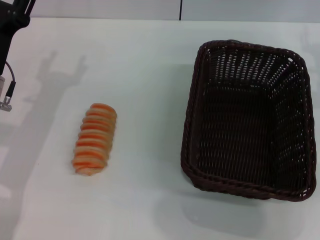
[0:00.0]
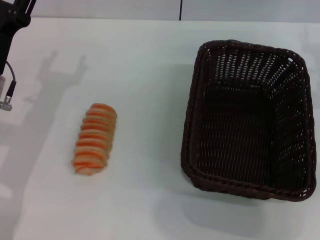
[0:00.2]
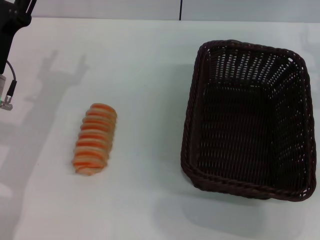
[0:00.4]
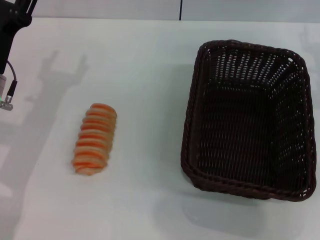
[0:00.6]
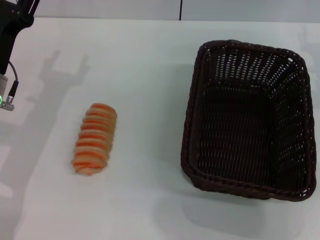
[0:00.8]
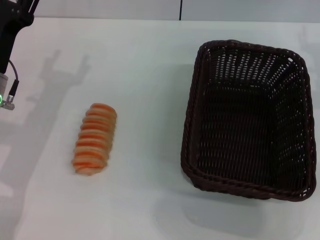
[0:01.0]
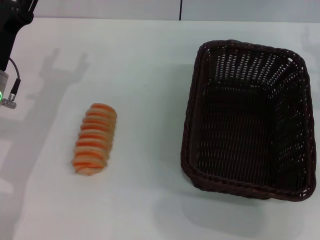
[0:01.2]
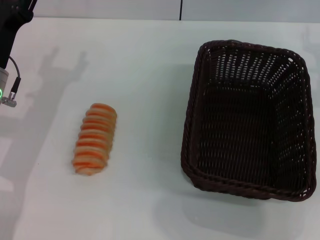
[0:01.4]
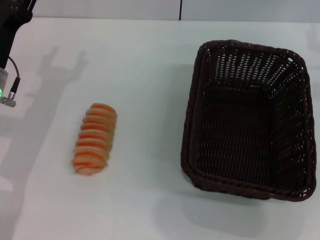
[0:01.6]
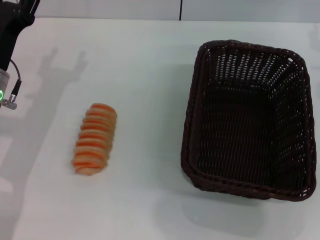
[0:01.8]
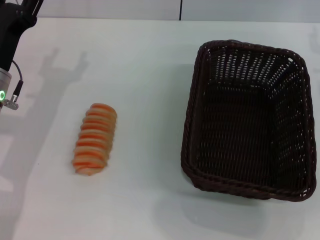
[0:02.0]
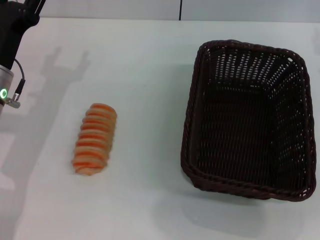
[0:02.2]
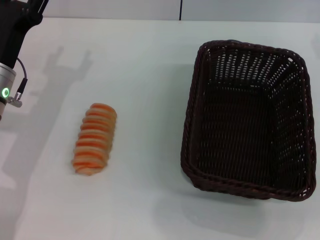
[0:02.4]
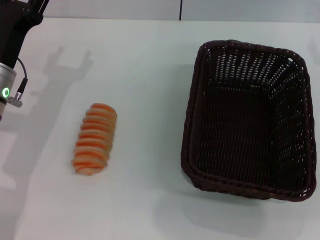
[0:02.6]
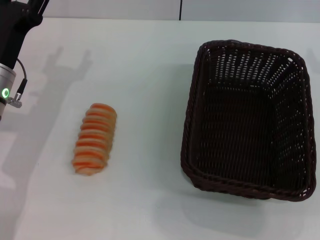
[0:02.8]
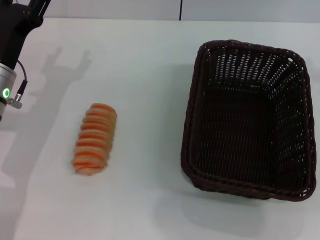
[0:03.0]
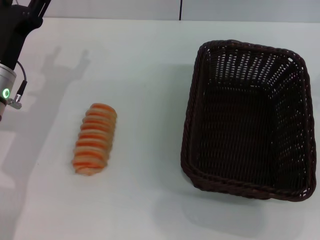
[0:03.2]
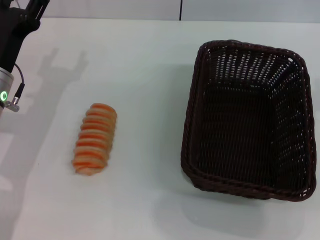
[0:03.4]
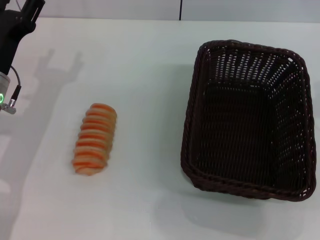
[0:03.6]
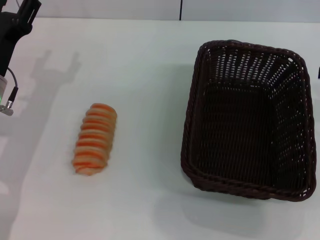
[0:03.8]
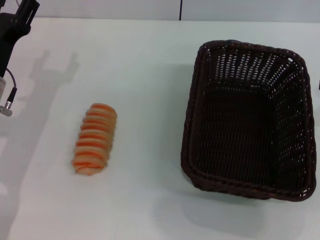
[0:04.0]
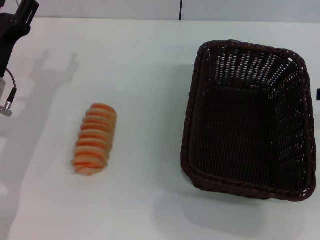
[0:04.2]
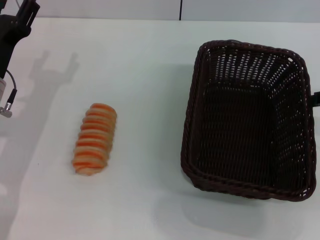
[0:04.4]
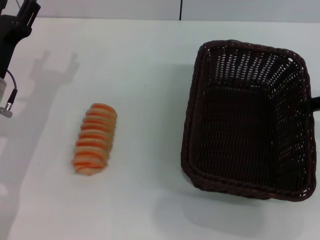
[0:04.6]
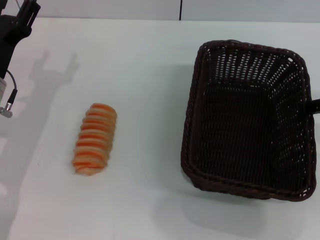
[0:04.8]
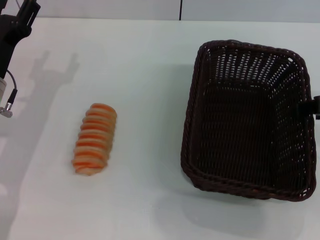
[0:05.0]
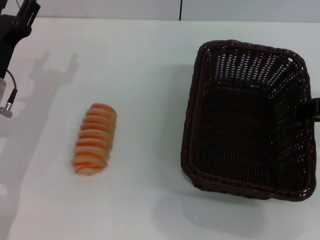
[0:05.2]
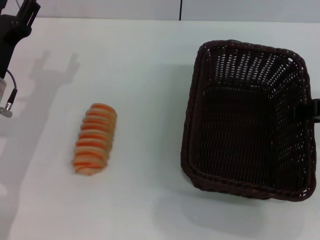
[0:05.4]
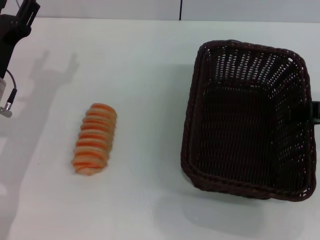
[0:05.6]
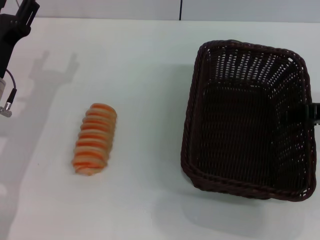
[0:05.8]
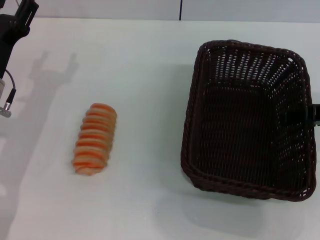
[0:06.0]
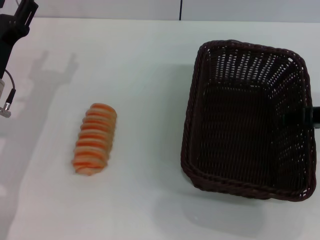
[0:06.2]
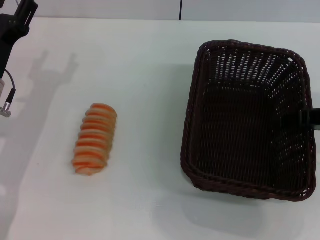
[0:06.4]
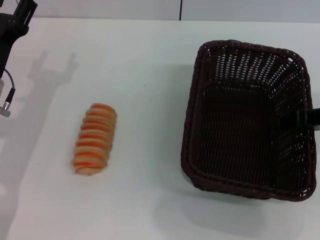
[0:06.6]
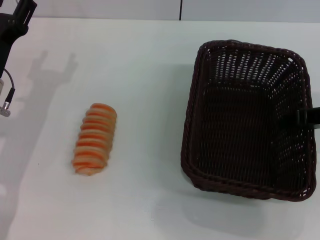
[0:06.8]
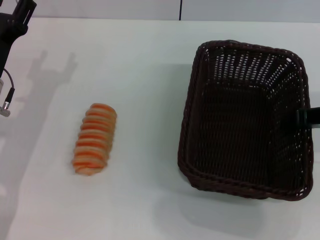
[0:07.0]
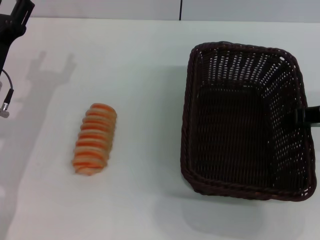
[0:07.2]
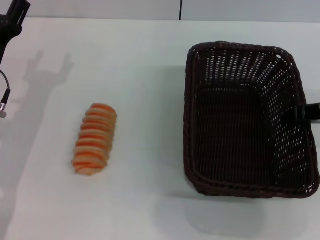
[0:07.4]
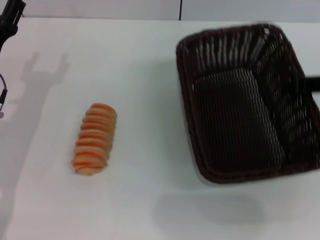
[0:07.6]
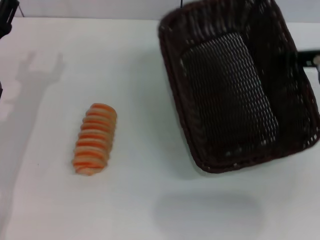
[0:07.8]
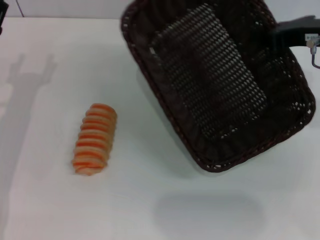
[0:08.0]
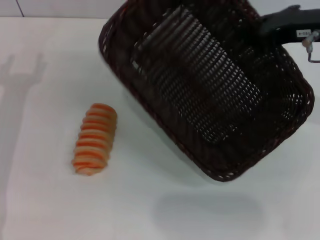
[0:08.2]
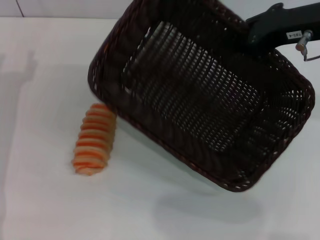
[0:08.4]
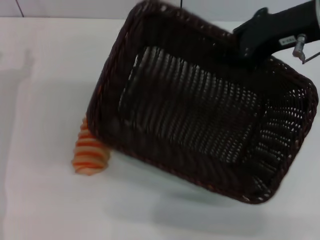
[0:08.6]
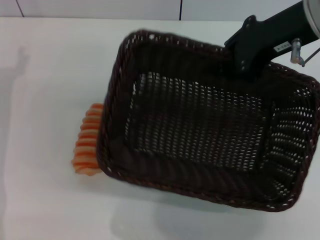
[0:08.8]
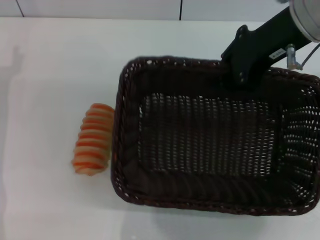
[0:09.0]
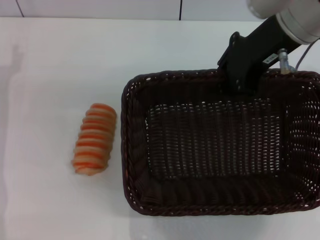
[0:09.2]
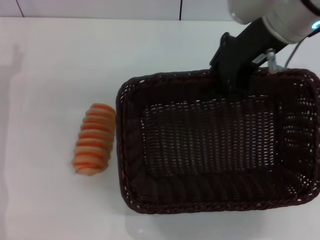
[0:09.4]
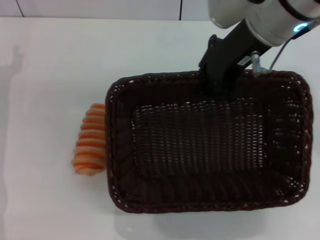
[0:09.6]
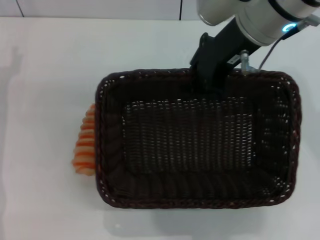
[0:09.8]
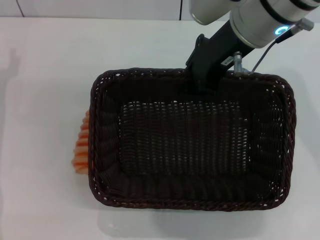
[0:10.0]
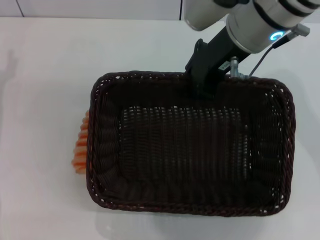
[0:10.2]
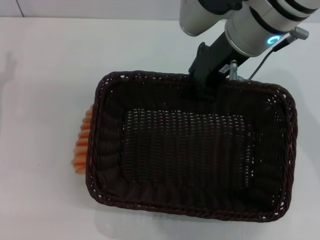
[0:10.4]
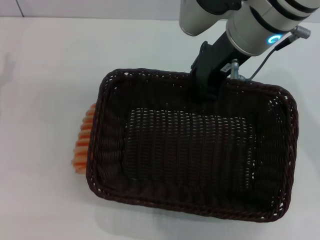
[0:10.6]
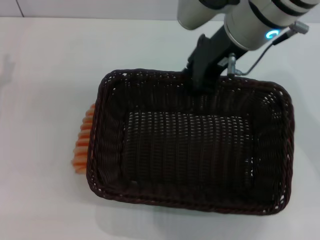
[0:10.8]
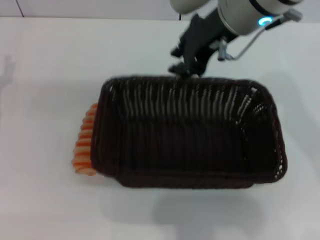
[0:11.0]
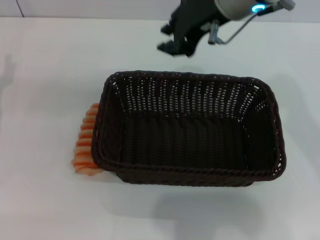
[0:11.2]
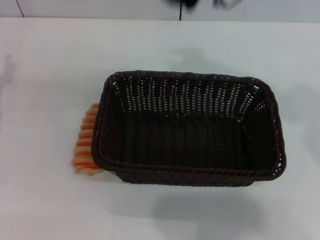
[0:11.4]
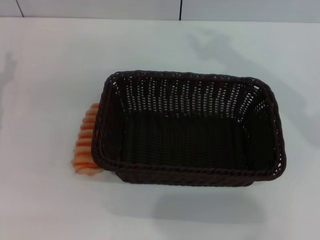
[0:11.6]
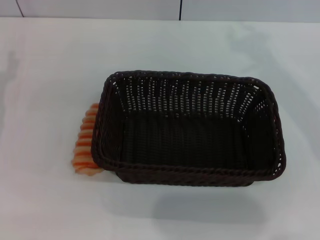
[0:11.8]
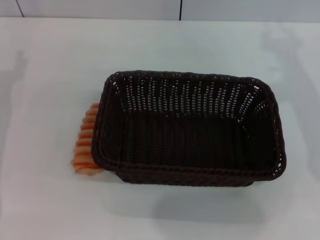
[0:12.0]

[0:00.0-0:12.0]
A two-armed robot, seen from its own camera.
Step, 0.0 to 7.8 s: Pick up the dark basket with the right gripper.
Step, 8.2 to 11.0 s: Place the dark basket in the center of view with the right gripper.
0.0 to 1.6 s: The grippers stay close to where they were, moving slightly.
4.4 to 6.0 s: The grippers stay close to where they were, moving slightly.
6.0 to 7.6 s: The right gripper closes its fingers.
7.6 to 9.0 s: The right gripper travels to the left and upward by about 15 cm. The left gripper changes place by roughly 5 cm.
9.0 to 10.4 s: The right gripper shifts about 5 cm to the left.
10.4 to 12.0 s: The right gripper travels to the right by some 10 cm, and opens its fingers.

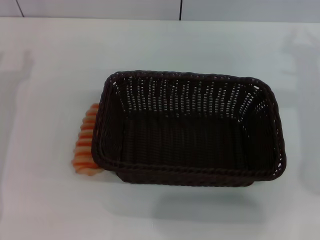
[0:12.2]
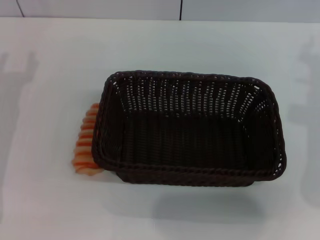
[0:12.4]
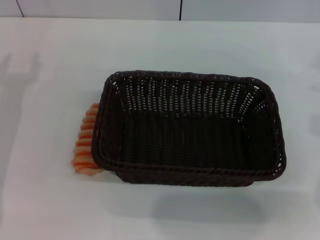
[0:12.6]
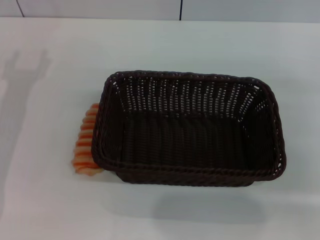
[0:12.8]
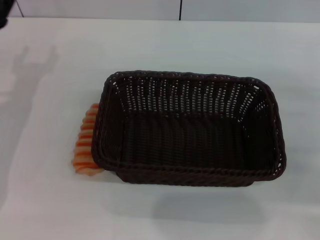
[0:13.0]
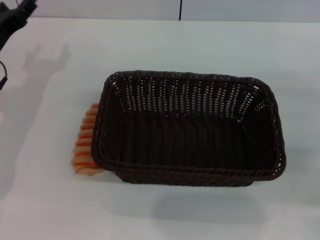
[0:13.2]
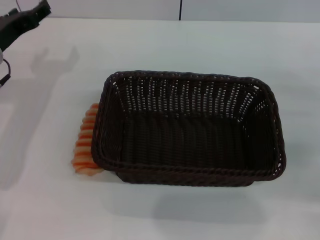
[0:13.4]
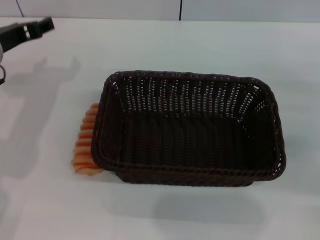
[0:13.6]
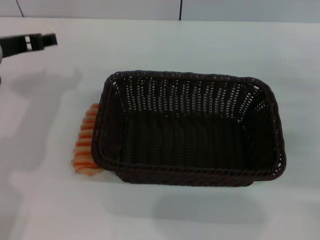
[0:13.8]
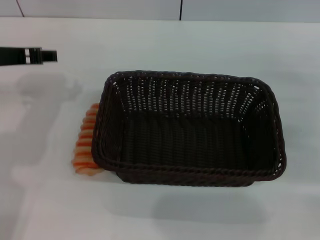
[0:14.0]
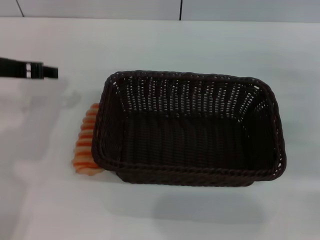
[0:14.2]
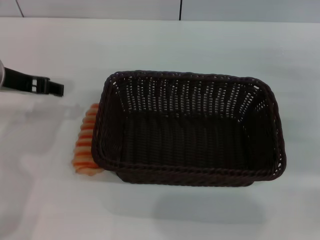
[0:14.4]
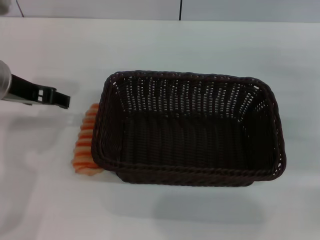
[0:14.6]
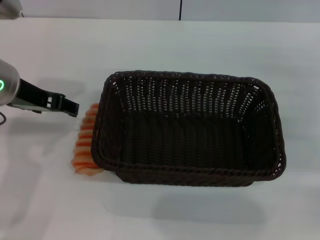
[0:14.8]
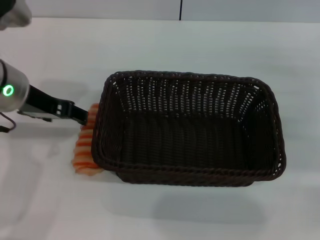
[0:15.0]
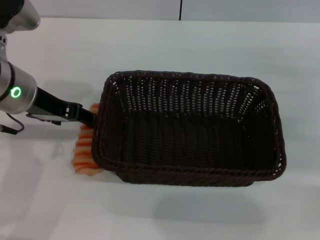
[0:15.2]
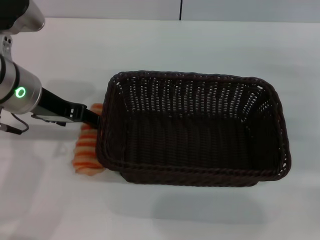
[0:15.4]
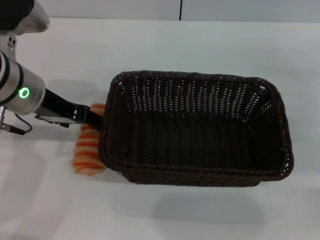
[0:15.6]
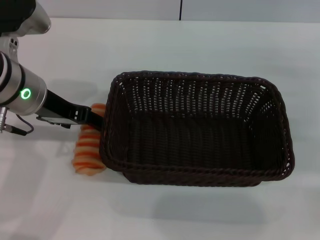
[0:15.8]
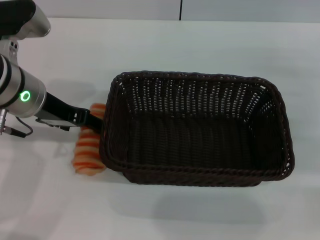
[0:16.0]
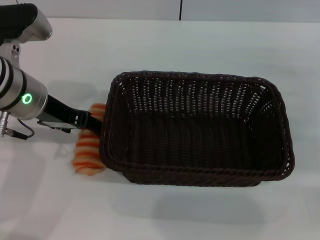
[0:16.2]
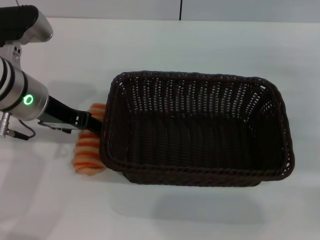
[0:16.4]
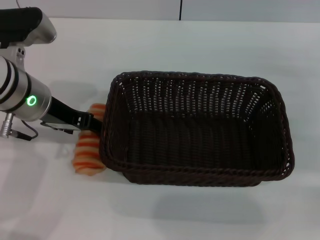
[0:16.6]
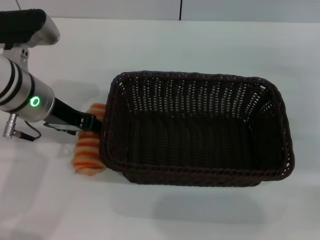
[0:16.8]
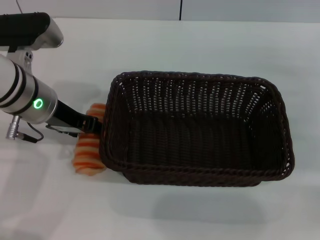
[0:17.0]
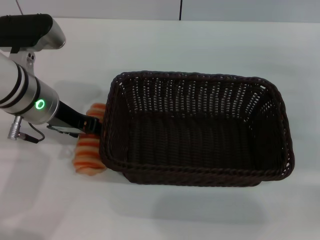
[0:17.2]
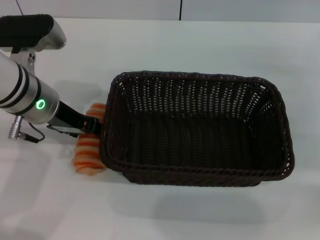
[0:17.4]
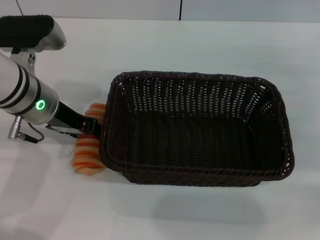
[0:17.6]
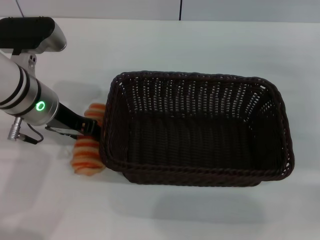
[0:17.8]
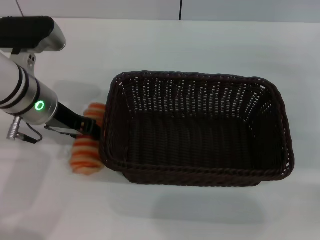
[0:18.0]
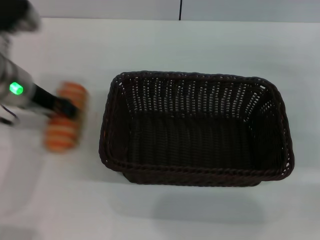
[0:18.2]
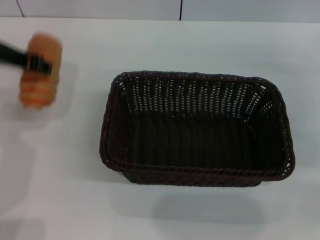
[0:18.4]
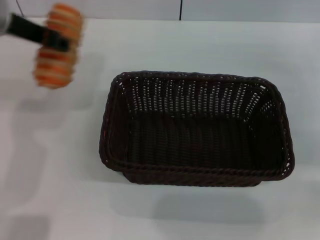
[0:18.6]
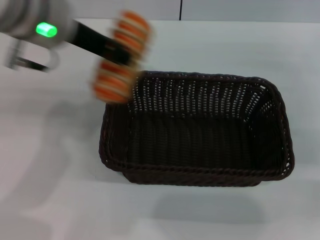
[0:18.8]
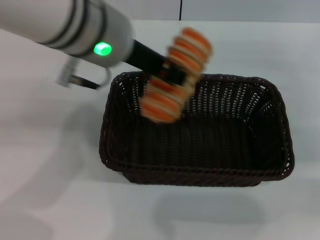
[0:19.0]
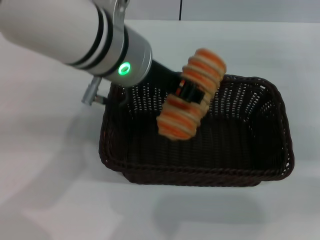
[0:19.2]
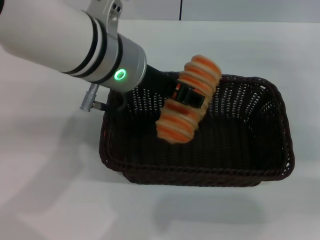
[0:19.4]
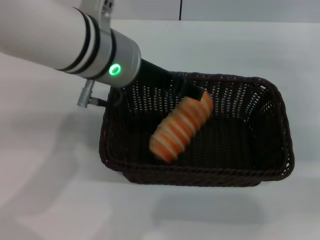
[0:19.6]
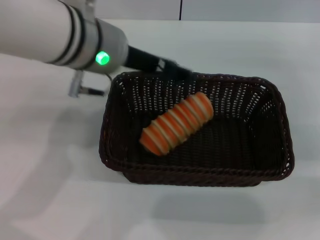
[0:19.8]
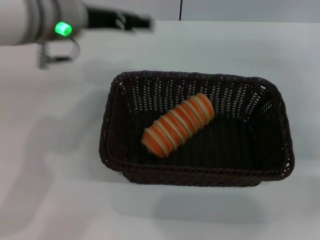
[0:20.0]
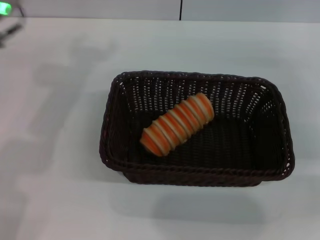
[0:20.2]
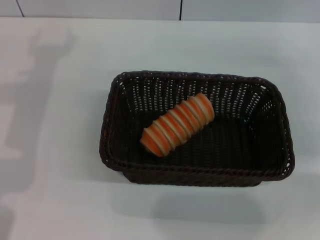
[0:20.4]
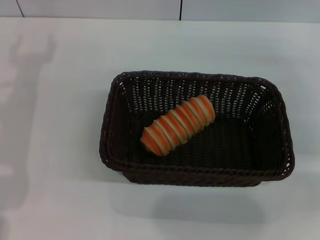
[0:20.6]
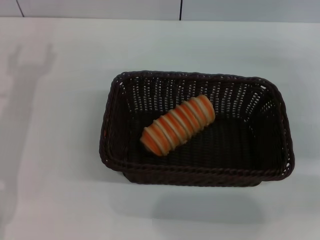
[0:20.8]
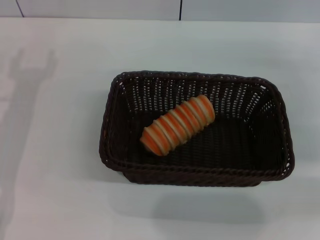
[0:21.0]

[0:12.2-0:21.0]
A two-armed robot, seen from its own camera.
Step, 12.2 to 18.2 s: Pick up the long bread with the left gripper.
Step, 18.4 to 19.6 s: Place the long bread into the dark basket with the left gripper.
12.2 to 13.6 s: The left gripper goes roughly 10 cm upward and to the right. The right gripper moves downward and to the right, about 15 cm.
13.6 to 15.2 s: The left gripper shifts by some 5 cm.
15.2 to 18.0 s: There are only small adjustments of the grippers.
18.0 to 19.6 s: The left gripper shifts some 15 cm to the right and upward, and closes, then reopens.
19.6 to 21.0 s: The left gripper moves to the left and downward, approximately 25 cm, and opens.

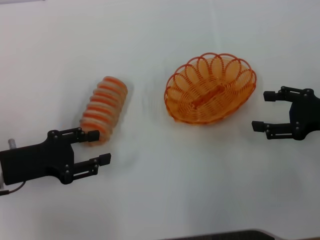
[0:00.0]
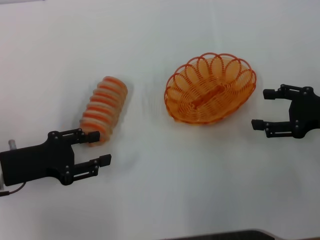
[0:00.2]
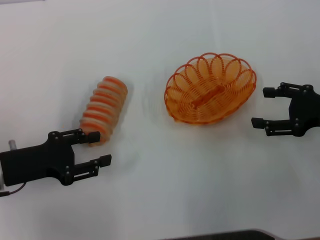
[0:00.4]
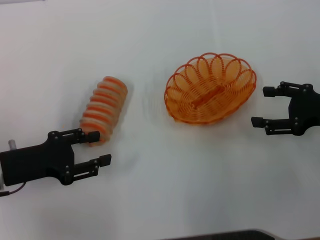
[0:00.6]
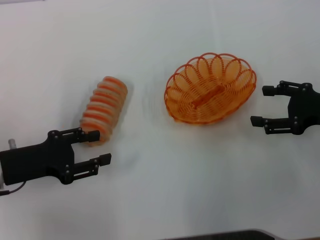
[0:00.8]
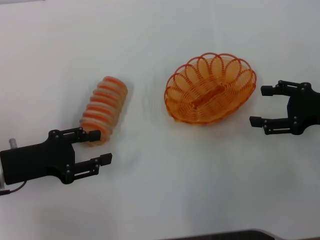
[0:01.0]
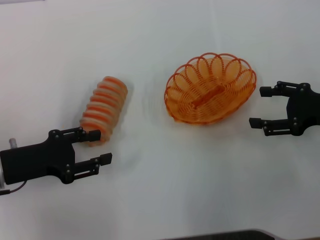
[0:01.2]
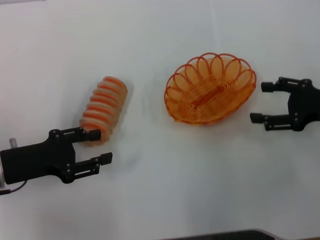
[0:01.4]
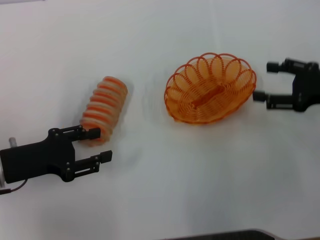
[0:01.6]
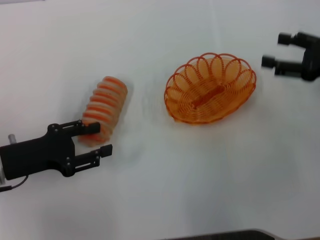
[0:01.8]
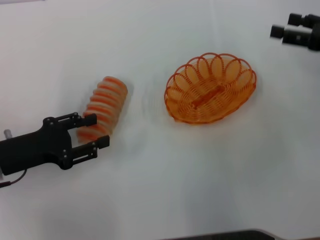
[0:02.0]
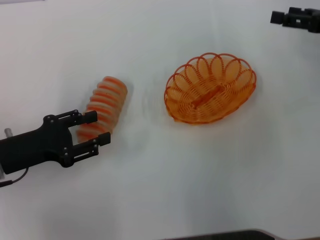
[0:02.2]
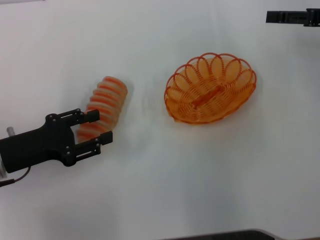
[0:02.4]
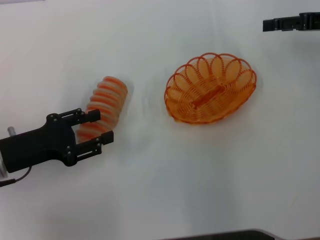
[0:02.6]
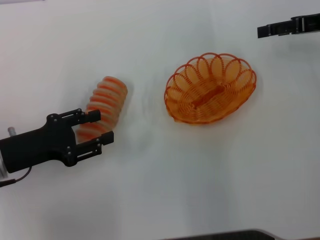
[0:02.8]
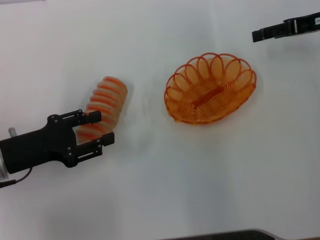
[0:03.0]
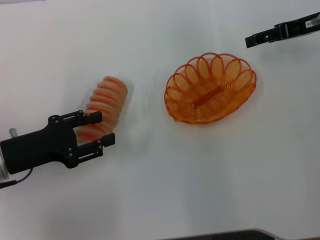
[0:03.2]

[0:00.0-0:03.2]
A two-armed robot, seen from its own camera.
0.0 to 1.6 s: The grippers make only small movements.
1.6 to 3.2 s: The right gripper moves forward and upward, some 15 cm.
